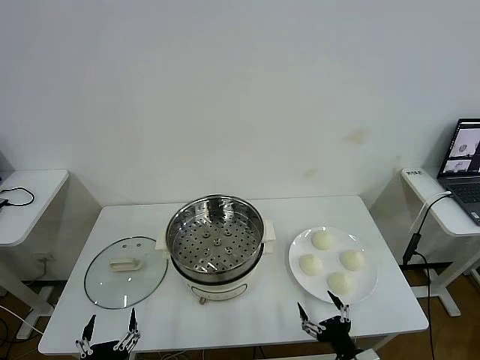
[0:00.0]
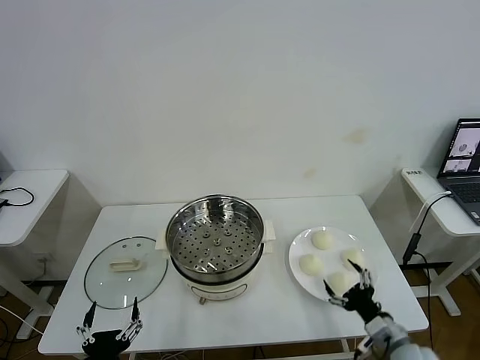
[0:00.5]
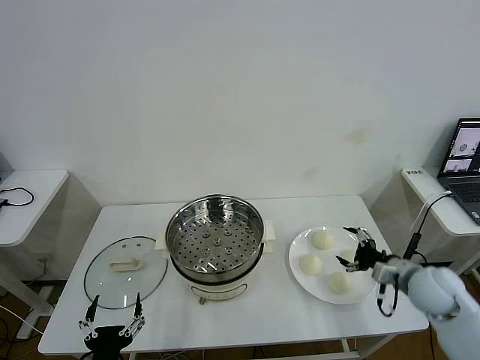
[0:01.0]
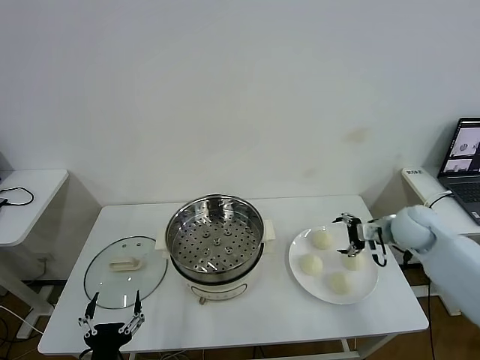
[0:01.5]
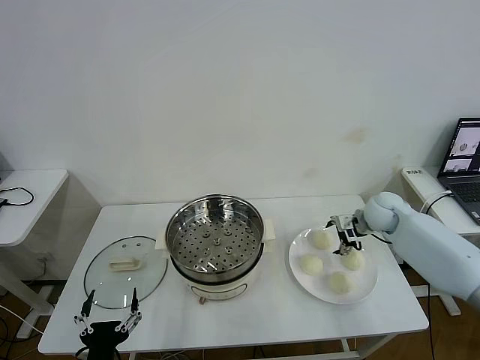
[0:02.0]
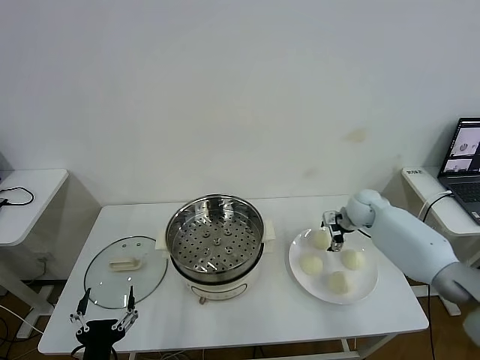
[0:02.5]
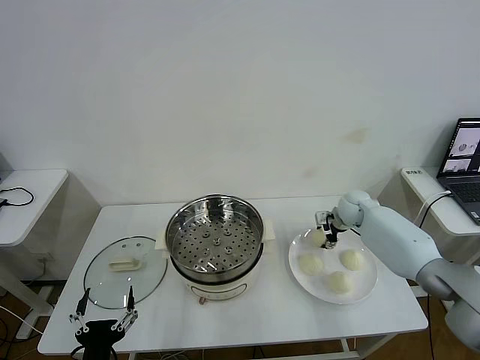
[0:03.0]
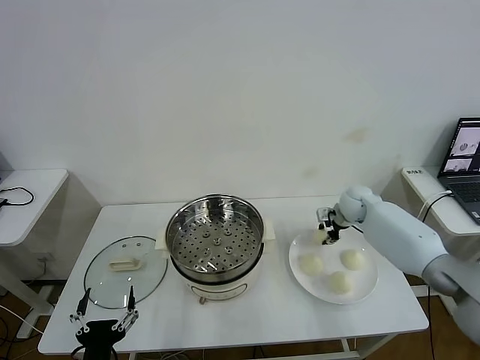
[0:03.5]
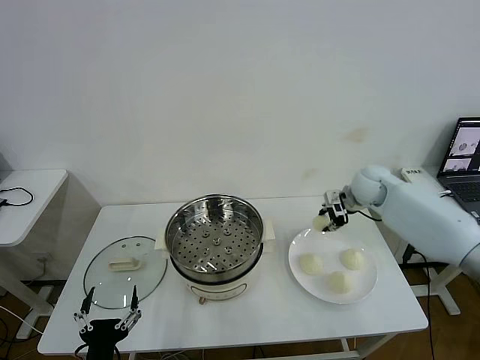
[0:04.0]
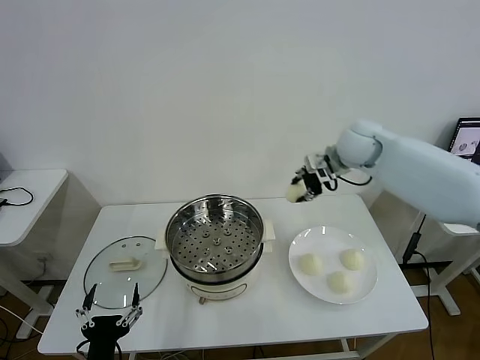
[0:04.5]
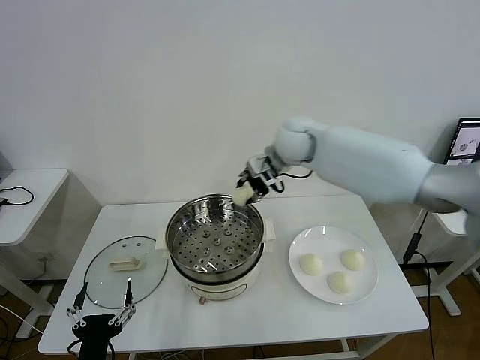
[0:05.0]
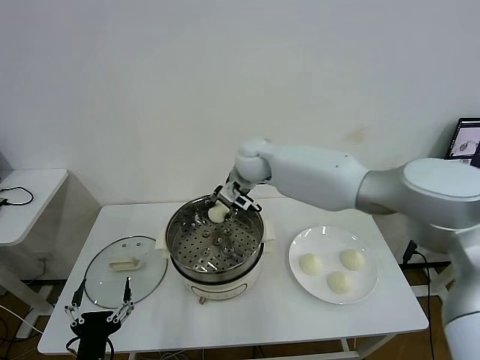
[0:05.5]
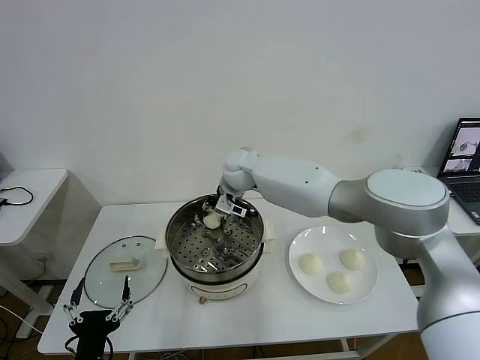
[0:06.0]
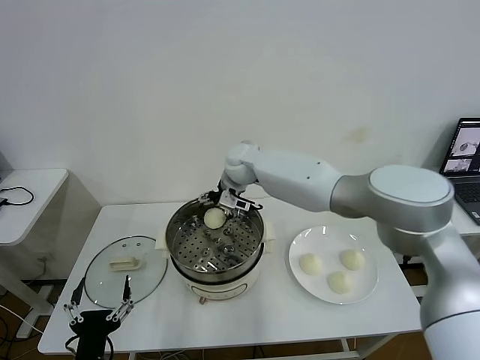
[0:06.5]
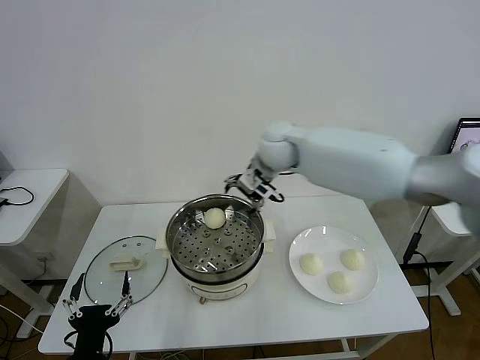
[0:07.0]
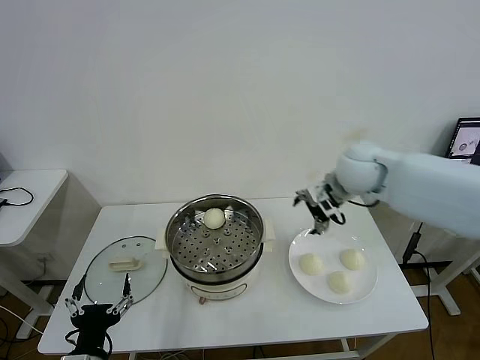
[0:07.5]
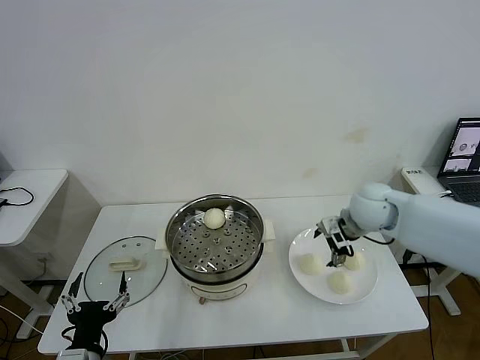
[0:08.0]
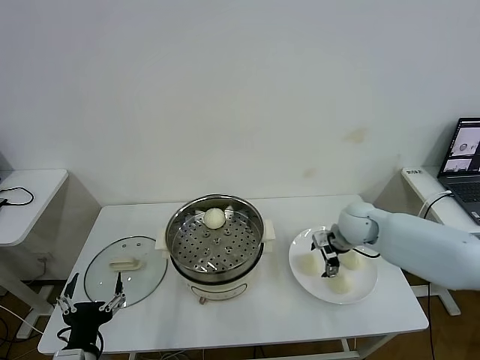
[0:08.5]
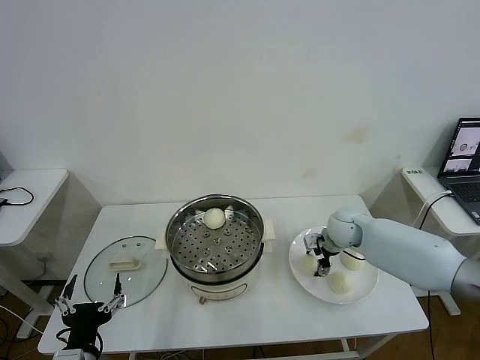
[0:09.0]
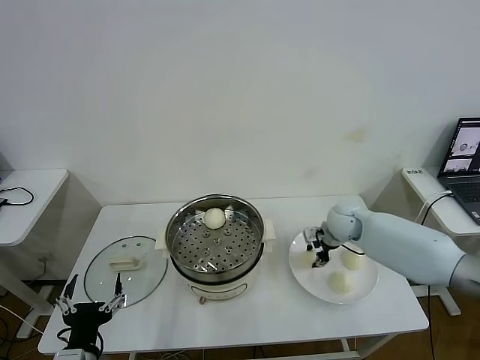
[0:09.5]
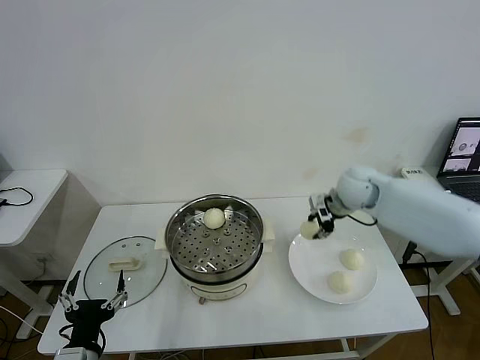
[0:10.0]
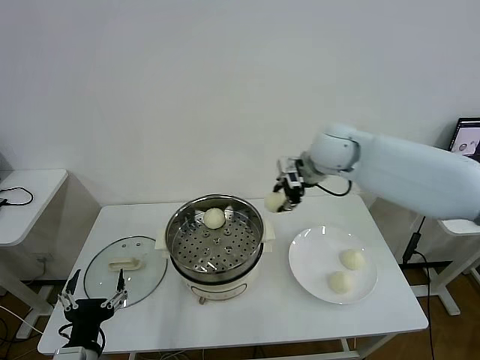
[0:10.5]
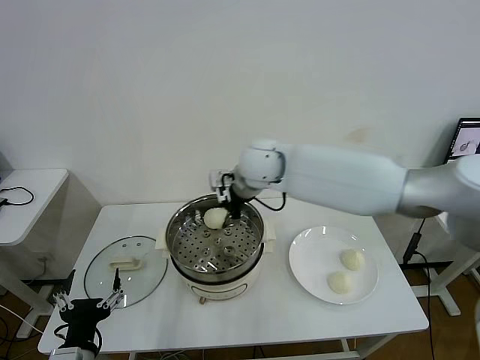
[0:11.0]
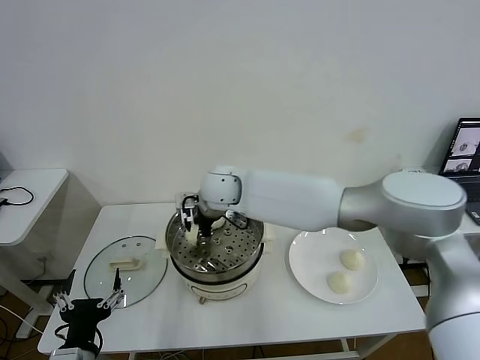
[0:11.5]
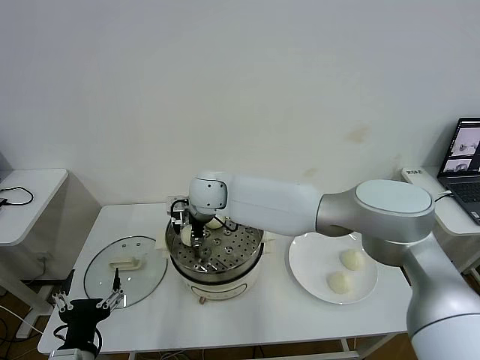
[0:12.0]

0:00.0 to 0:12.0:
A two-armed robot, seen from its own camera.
Task of the whole recording: take steamed baozi put them in steamer then cover it.
Step, 0:00.0 to 0:03.0: Grasp the baozi in the plate with right gripper.
Step, 0:03.5 to 0:06.0: Place the baozi on the steamer with right gripper.
Step, 0:06.5 to 0:09.0: Grasp the baozi in the plate with right gripper.
0:02.0 to 0:04.0: The right gripper goes about 5 cm upward, and closes up.
0:04.0 to 0:06.0: The right gripper moves to the left, some 30 cm.
0:06.0 to 0:08.0: The right gripper goes approximately 30 cm to the right and backward, and opens its fingers.
0:08.0 to 0:10.0: The right gripper moves forward, about 5 cm, travels downward and back again, approximately 10 cm each way, and closes its fingers.
0:10.0 to 0:12.0: The right gripper moves to the left, approximately 35 cm, and opens.

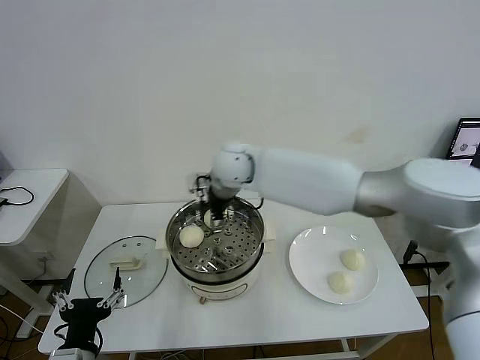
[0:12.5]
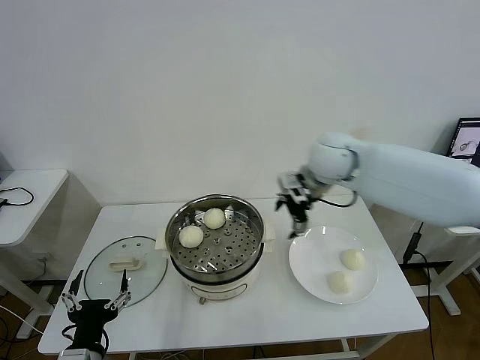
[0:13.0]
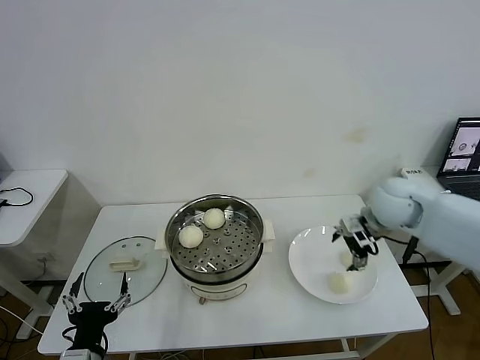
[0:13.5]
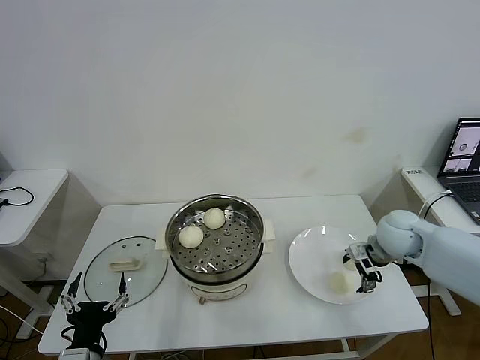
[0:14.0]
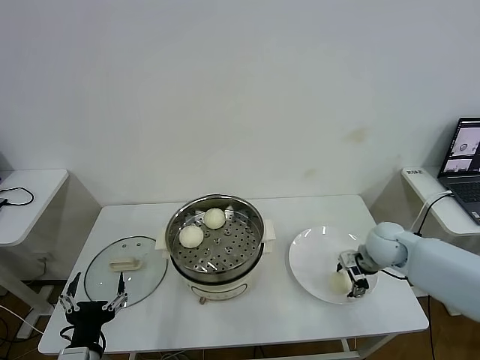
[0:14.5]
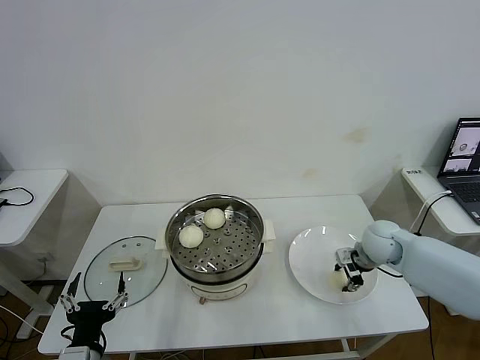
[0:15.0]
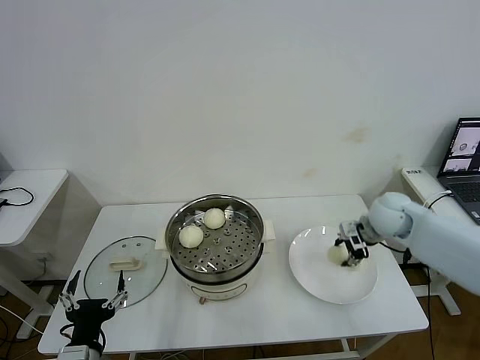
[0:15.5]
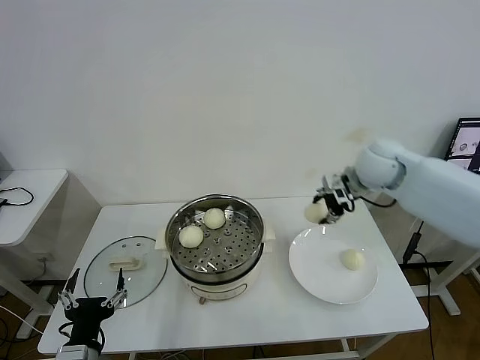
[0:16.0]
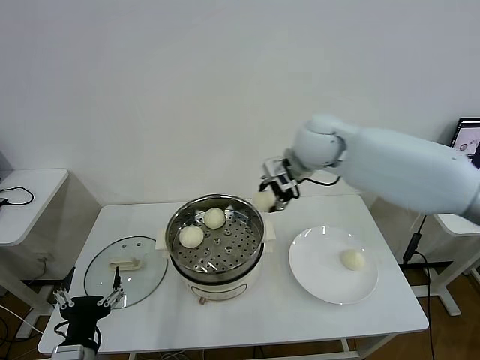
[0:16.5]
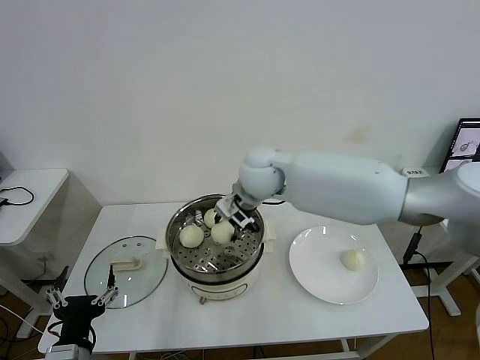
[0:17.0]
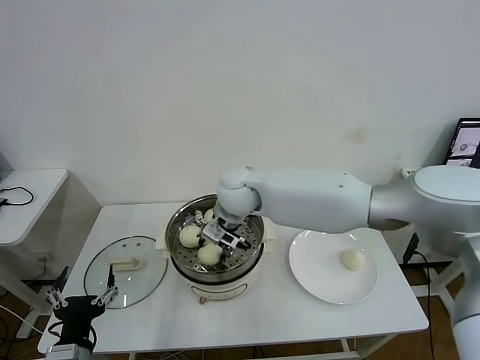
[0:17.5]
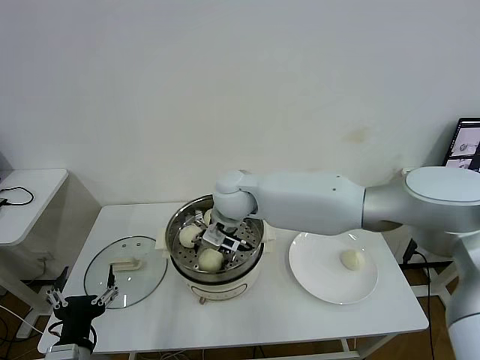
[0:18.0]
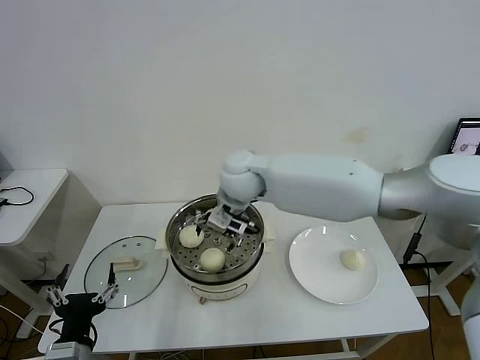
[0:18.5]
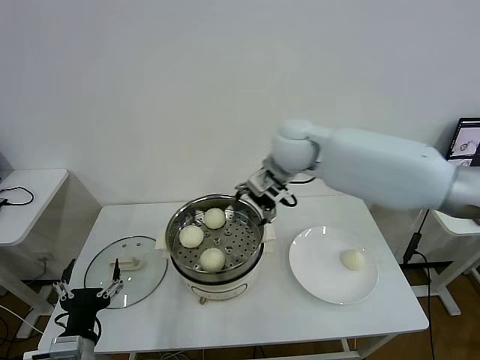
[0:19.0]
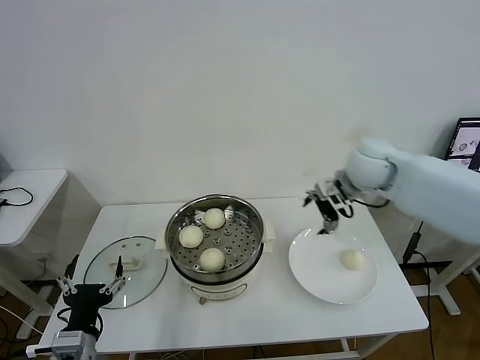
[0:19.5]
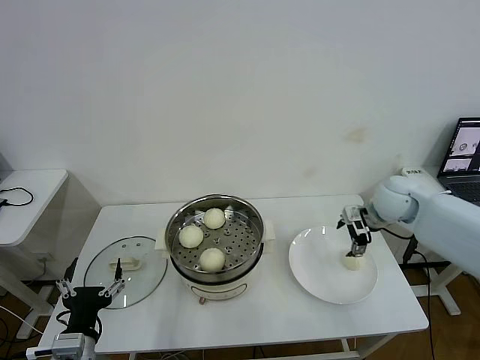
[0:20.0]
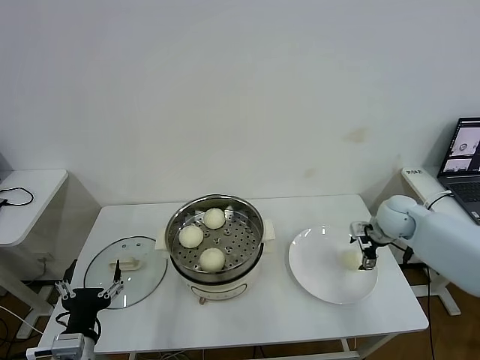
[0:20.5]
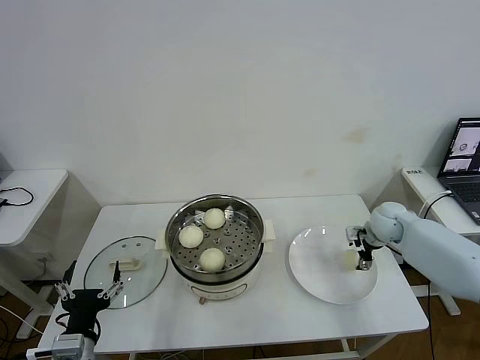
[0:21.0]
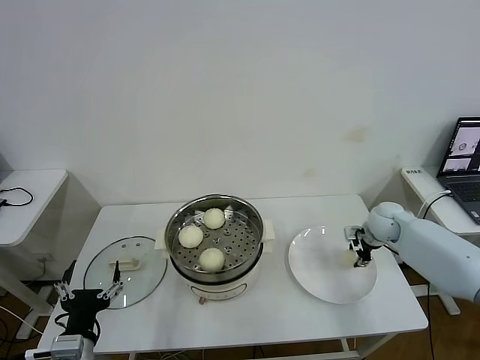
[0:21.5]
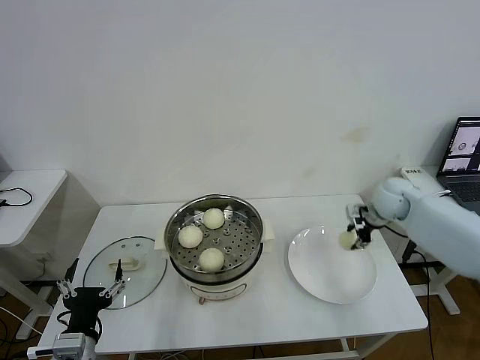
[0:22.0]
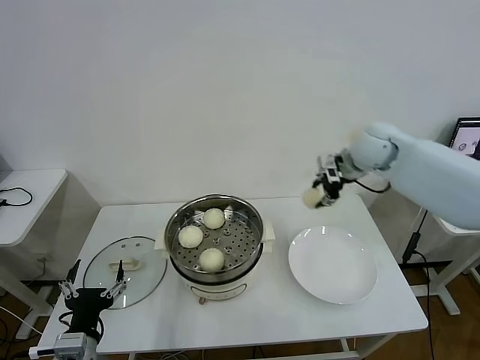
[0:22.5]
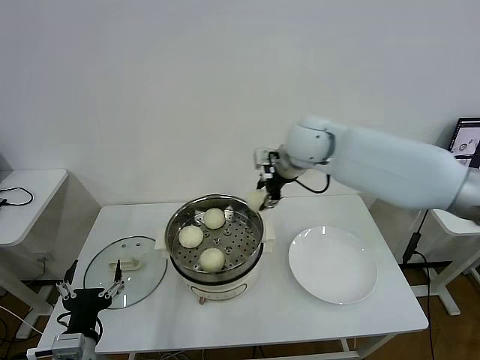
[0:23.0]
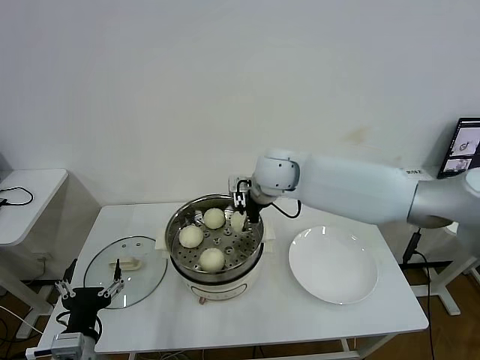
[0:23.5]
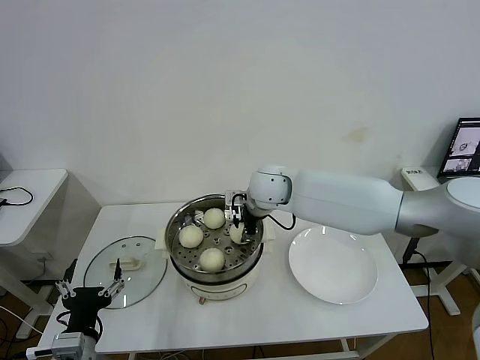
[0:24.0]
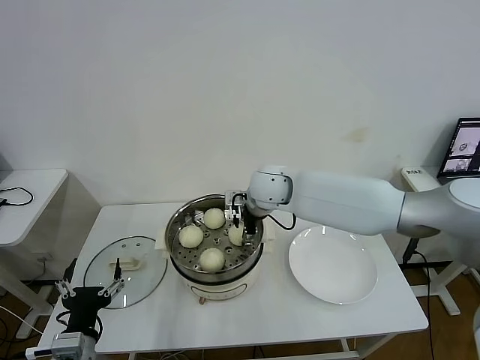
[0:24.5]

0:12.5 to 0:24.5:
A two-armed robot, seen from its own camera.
Task of the whole recording: take steamed baozi put them in steamer then cover it.
Step, 0:12.5 to 0:14.5: Grasp the baozi in the plate with right gripper.
Step, 0:15.0 to 0:18.0: Place the baozi on the steamer with right gripper.
Step, 0:18.5 to 0:21.0: Grasp the baozi in the plate with right gripper.
0:12.5 to 0:14.5: The right gripper is displaced to the right and downward by about 40 cm.
0:14.5 to 0:16.5: The right gripper goes about 30 cm upward and to the left, and closes its fingers.
0:16.5 to 0:18.5: The right gripper goes about 15 cm to the left and downward, and opens up.
0:18.5 to 0:20.5: The right gripper travels to the right by approximately 40 cm.
0:20.5 to 0:22.5: The right gripper travels upward and to the left by some 20 cm, and closes up.
0:22.5 to 0:24.5: The right gripper travels to the left by approximately 20 cm, and opens its fingers.

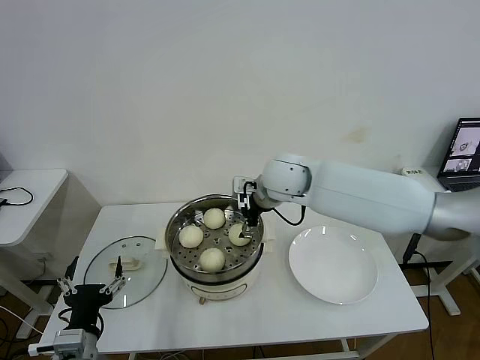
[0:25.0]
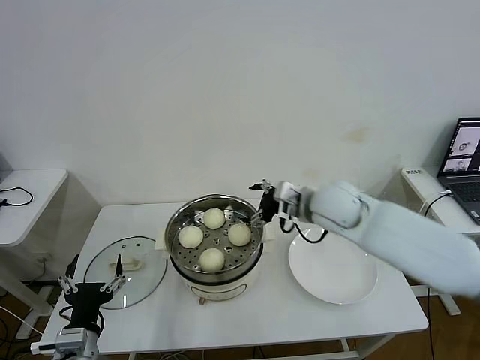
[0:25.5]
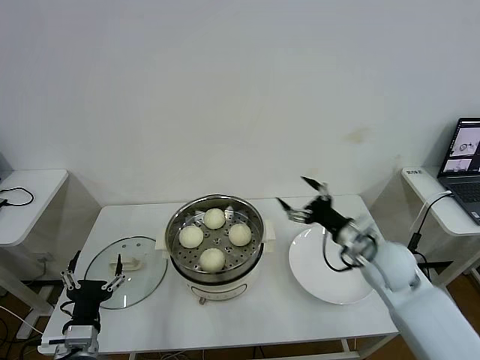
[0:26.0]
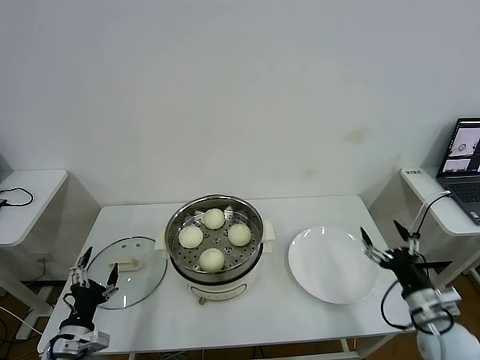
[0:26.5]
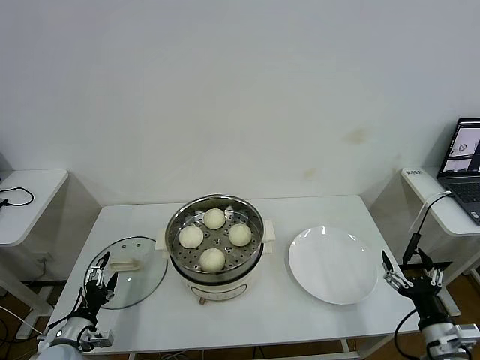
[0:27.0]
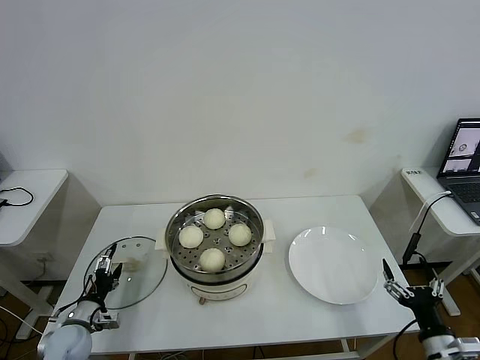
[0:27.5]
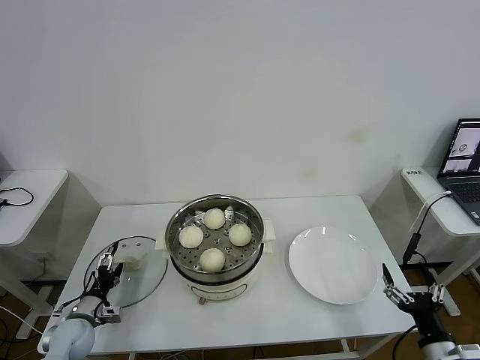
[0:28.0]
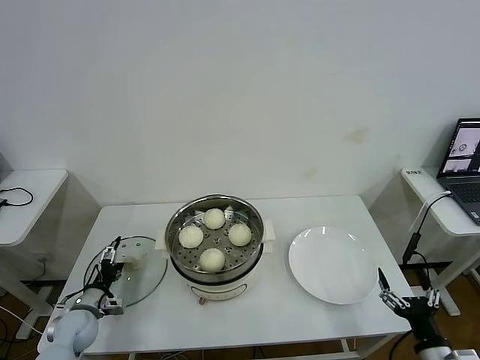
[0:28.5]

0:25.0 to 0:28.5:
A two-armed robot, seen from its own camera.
Task of the whole recording: take steamed baozi put them in steamer then cover it.
0:25.0 to 0:27.0: The left gripper shifts approximately 15 cm downward, to the left and forward. Meanwhile the right gripper heads to the right, backward and downward, covering roughly 50 cm.
0:27.0 to 0:28.5: The left gripper goes roughly 10 cm forward.
